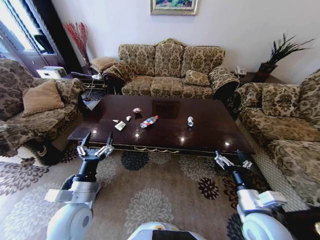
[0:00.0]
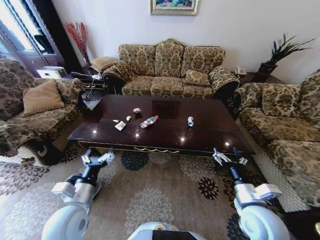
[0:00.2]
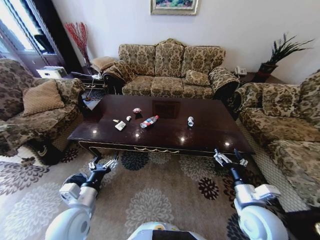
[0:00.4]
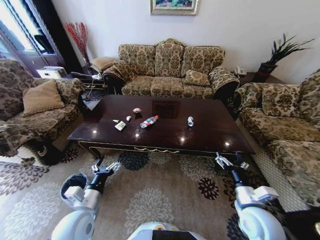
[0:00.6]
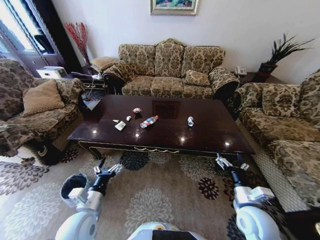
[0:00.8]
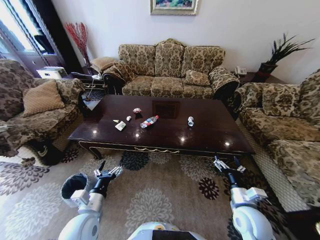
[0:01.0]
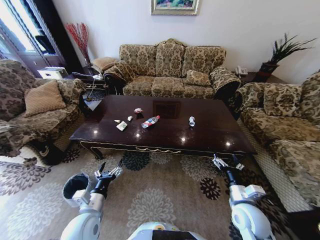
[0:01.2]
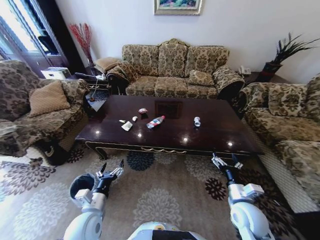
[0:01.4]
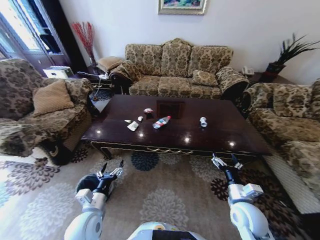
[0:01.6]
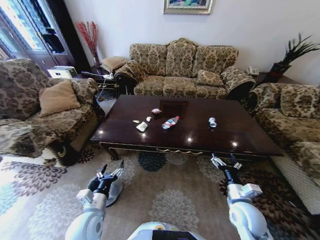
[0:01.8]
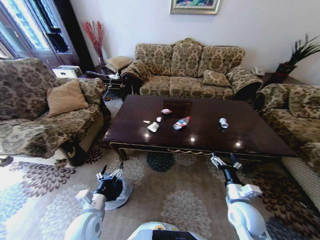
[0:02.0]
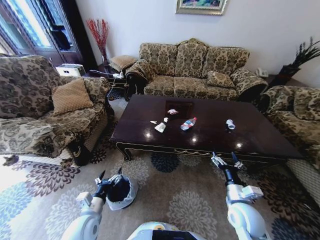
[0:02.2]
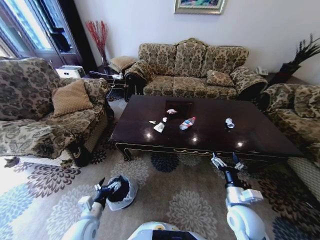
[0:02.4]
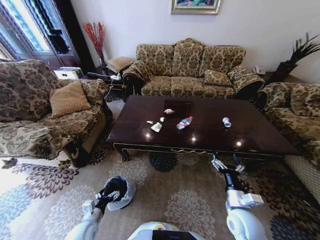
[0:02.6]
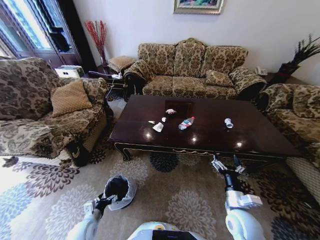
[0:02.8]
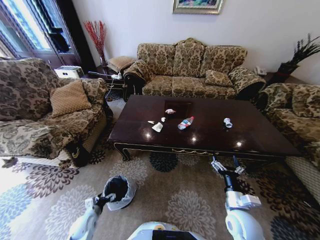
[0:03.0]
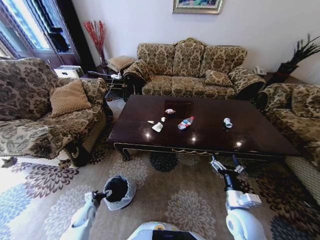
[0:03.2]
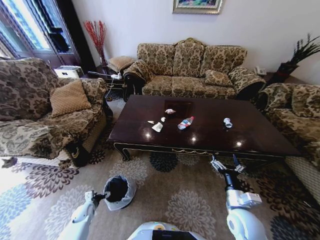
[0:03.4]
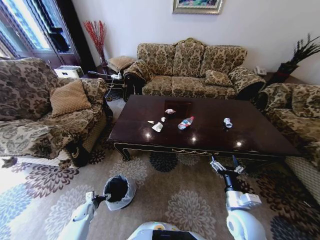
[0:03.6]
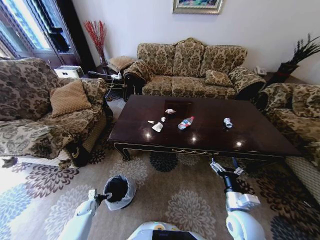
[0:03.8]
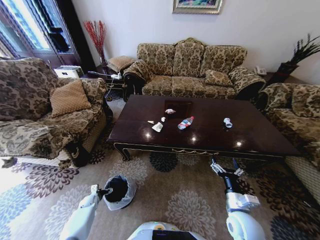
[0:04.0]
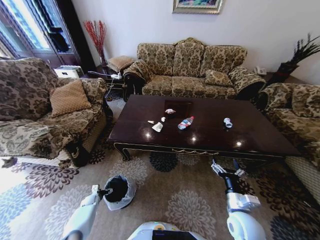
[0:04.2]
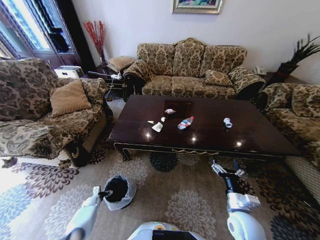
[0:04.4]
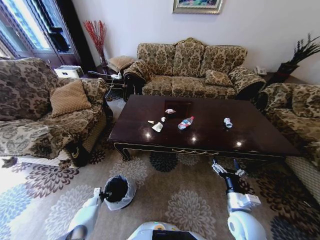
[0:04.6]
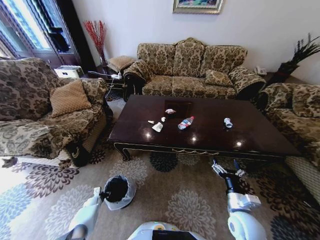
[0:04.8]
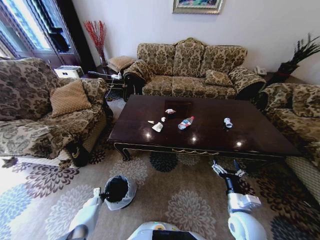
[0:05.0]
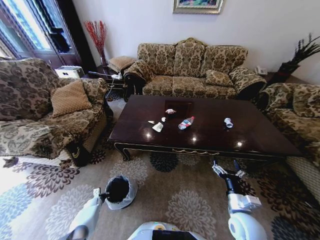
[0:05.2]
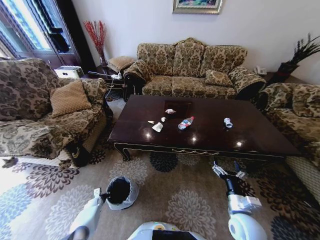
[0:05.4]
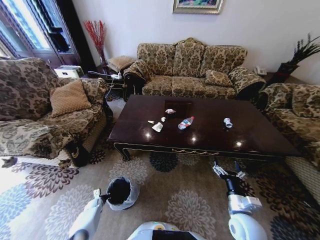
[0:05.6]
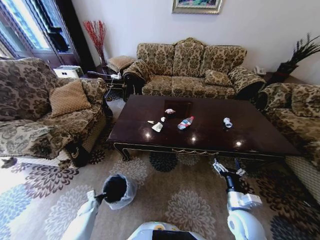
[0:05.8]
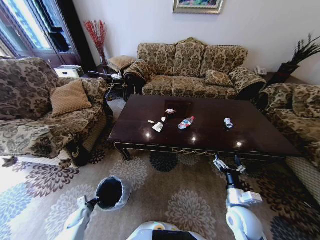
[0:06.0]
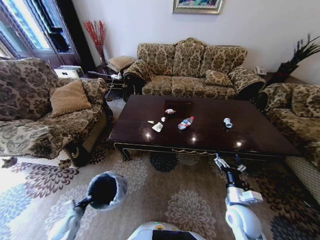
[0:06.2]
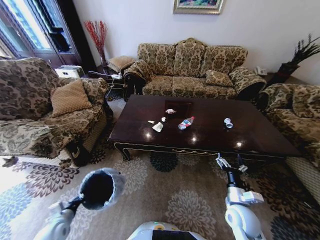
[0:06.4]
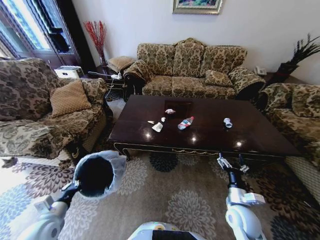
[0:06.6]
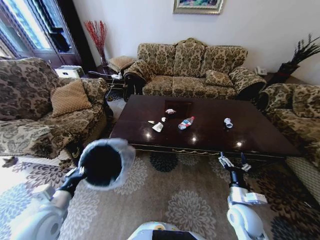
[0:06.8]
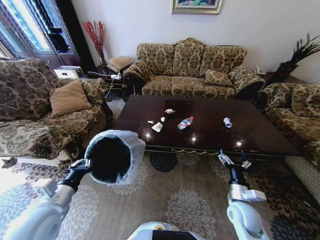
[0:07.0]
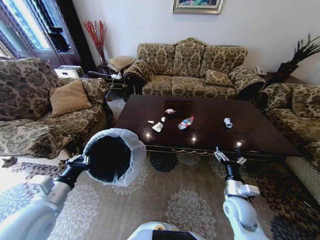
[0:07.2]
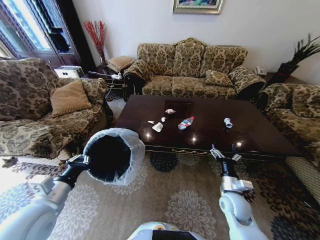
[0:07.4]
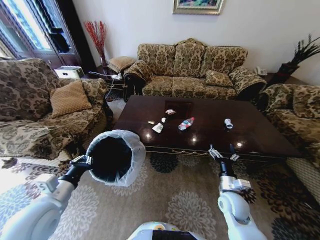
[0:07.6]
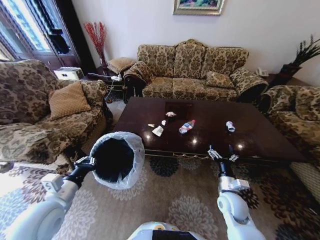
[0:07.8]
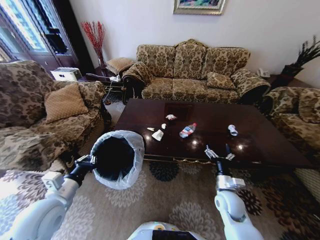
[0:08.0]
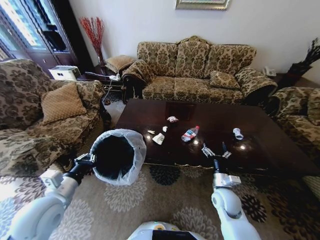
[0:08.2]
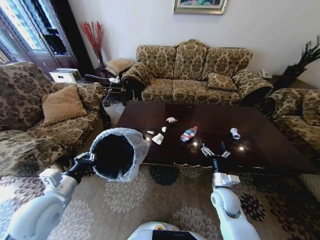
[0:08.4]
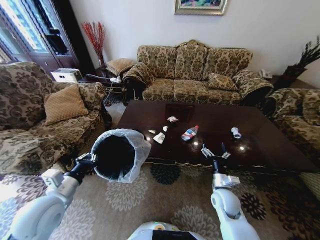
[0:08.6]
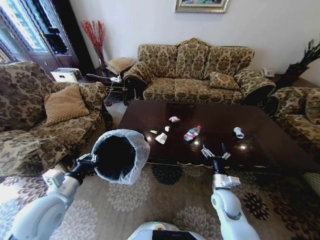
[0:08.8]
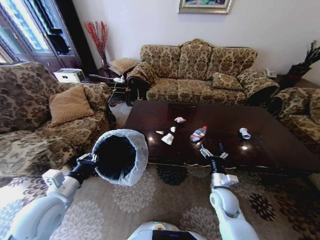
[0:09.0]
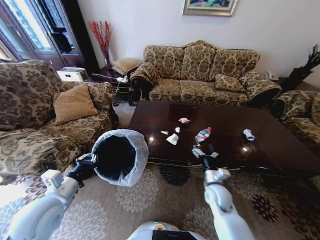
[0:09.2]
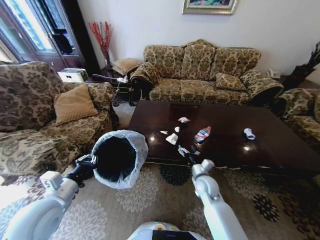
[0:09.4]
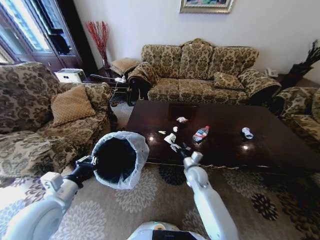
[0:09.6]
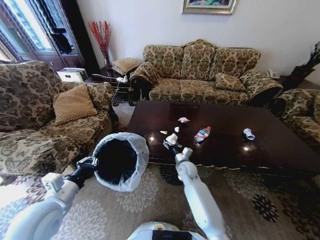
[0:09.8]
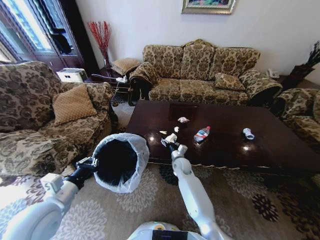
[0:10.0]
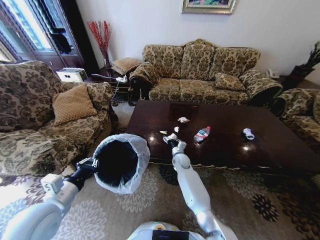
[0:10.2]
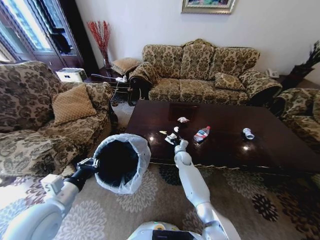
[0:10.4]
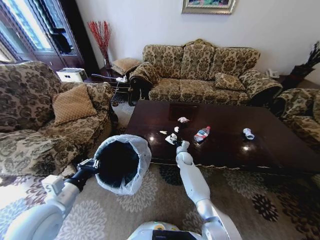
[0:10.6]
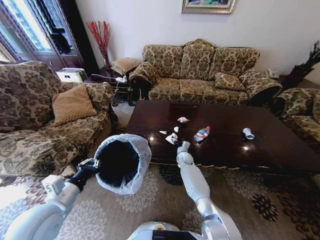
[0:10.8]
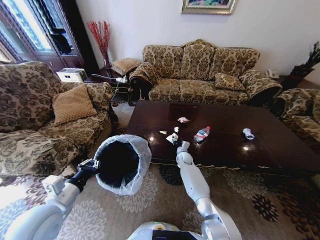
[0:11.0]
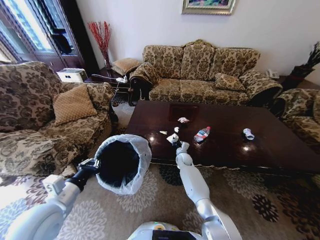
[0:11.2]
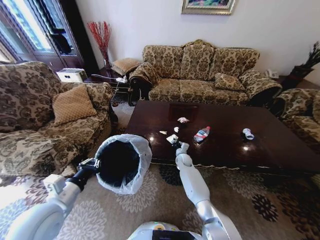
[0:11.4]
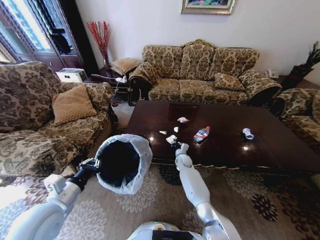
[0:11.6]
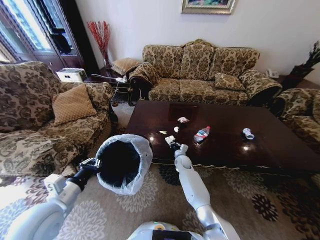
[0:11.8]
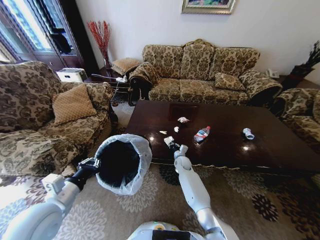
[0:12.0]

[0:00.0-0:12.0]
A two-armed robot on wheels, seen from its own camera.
Task of the whole recording: Move to the front of the table and place the trash on the table into the trash bin.
0:01.6 to 0:03.0: The left gripper goes about 20 cm downward and to the left.
0:03.0 to 0:04.4: The left gripper heads downward, forward and to the left, covering about 20 cm.
0:04.4 to 0:06.0: The left gripper is displaced backward and upward by roughly 10 cm, and closes its fingers.
0:06.0 to 0:07.6: The left gripper is displaced upward by approximately 40 cm. The right gripper moves forward, approximately 5 cm.
0:09.0 to 0:10.4: The right gripper heads forward and to the left, covering roughly 25 cm.
0:10.4 to 0:12.0: The right gripper closes its fingers.

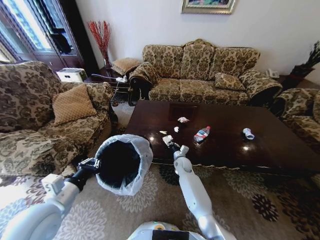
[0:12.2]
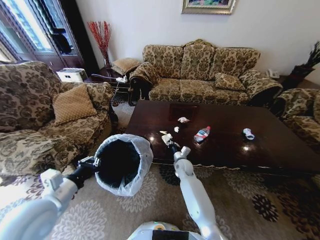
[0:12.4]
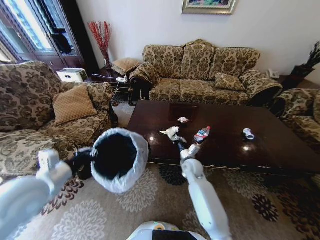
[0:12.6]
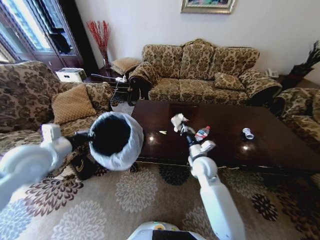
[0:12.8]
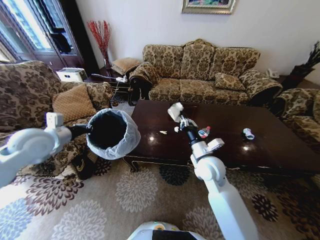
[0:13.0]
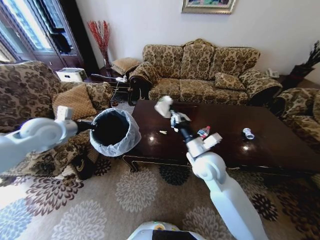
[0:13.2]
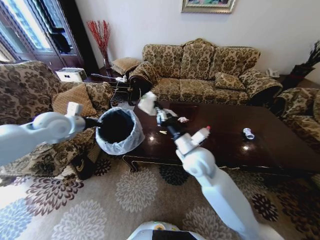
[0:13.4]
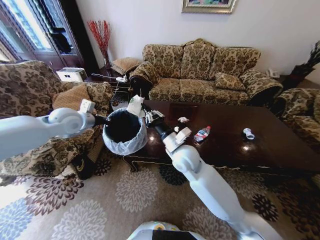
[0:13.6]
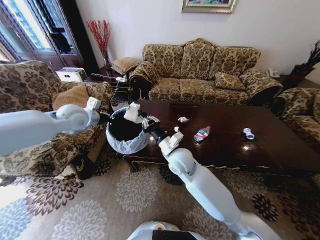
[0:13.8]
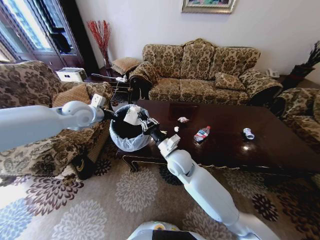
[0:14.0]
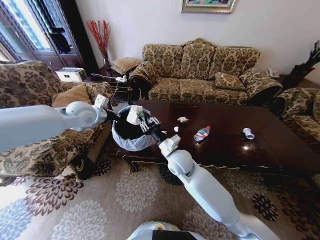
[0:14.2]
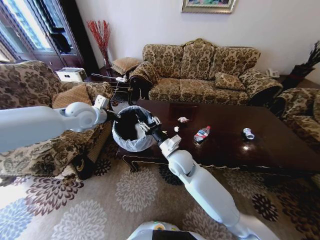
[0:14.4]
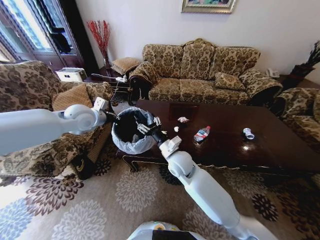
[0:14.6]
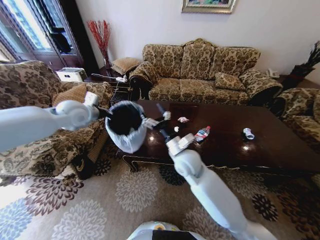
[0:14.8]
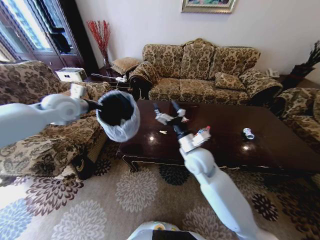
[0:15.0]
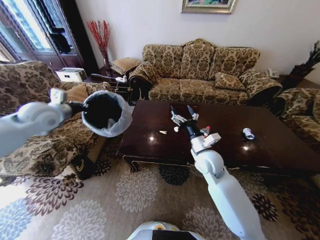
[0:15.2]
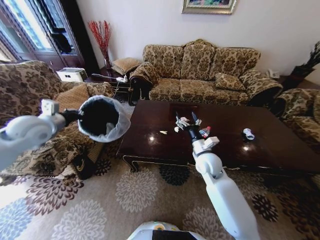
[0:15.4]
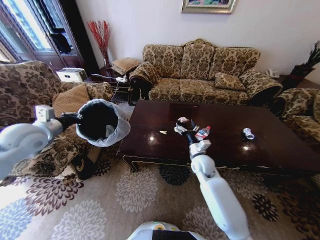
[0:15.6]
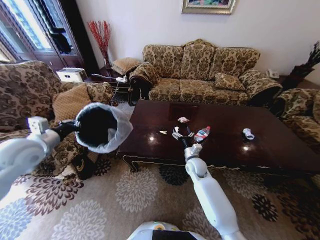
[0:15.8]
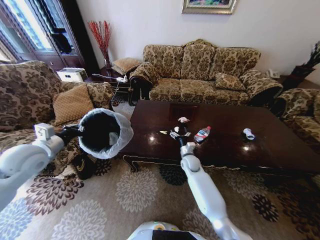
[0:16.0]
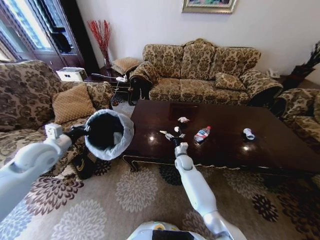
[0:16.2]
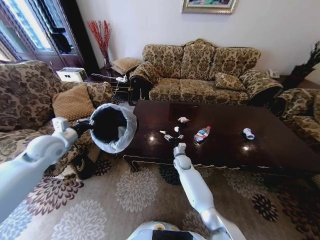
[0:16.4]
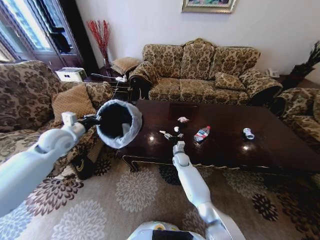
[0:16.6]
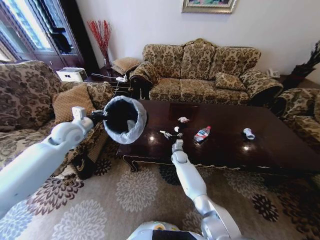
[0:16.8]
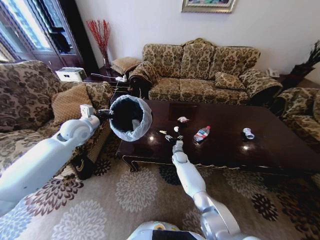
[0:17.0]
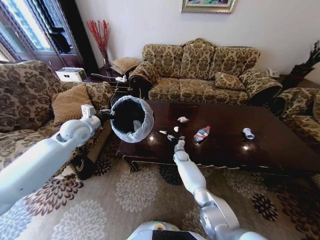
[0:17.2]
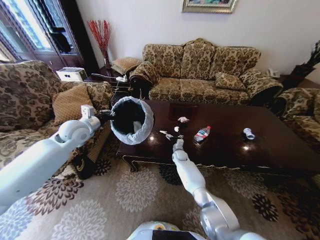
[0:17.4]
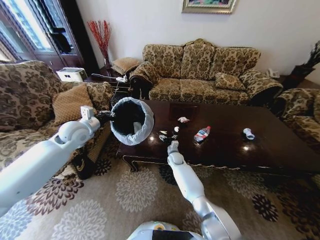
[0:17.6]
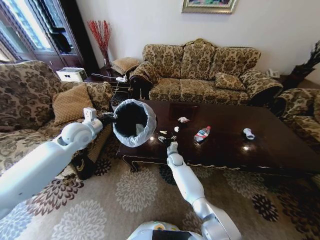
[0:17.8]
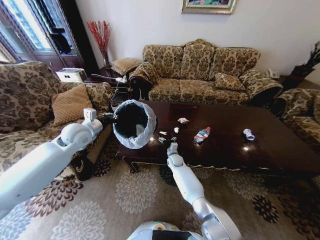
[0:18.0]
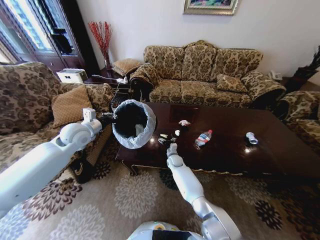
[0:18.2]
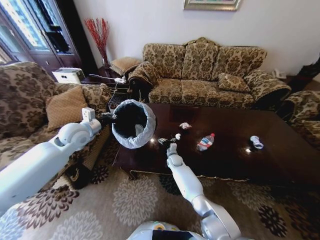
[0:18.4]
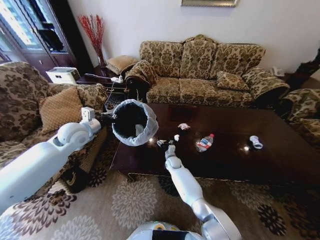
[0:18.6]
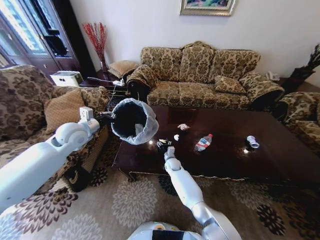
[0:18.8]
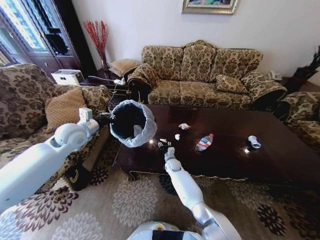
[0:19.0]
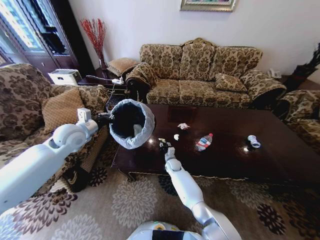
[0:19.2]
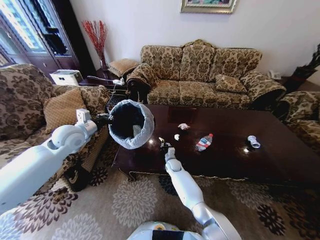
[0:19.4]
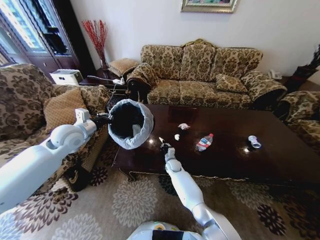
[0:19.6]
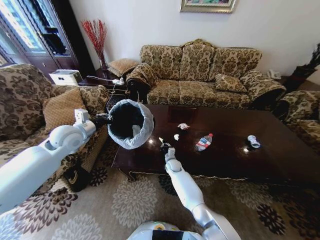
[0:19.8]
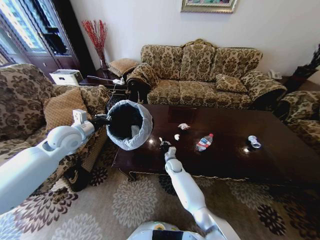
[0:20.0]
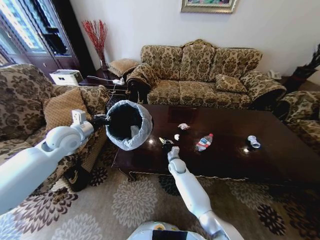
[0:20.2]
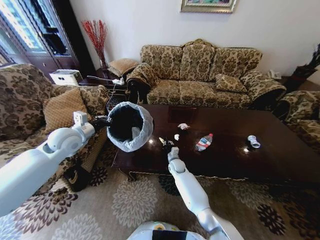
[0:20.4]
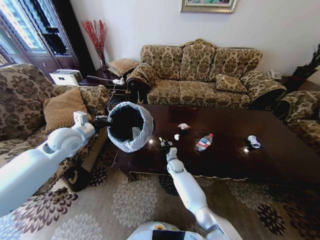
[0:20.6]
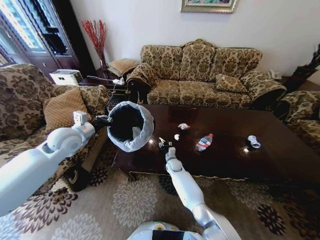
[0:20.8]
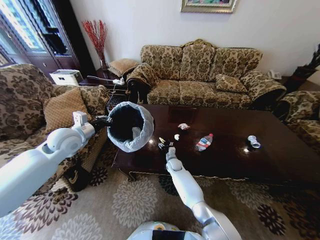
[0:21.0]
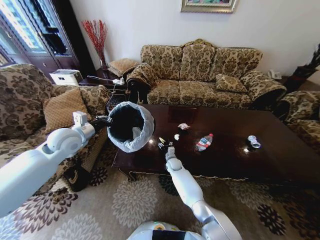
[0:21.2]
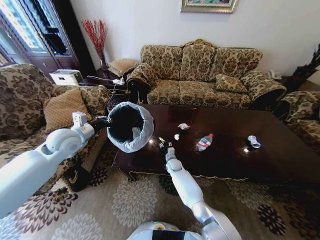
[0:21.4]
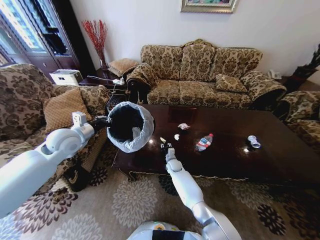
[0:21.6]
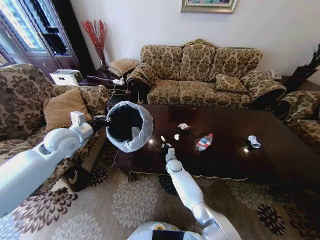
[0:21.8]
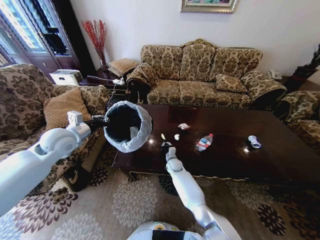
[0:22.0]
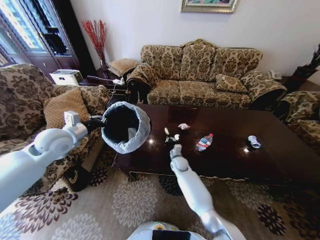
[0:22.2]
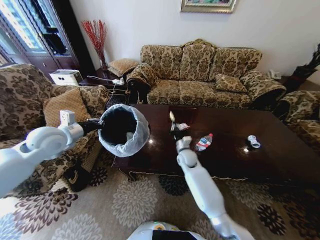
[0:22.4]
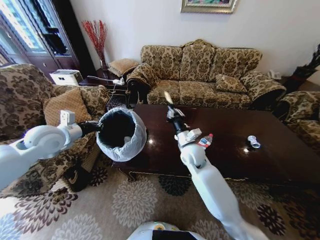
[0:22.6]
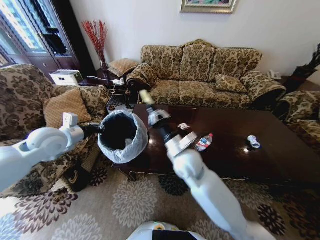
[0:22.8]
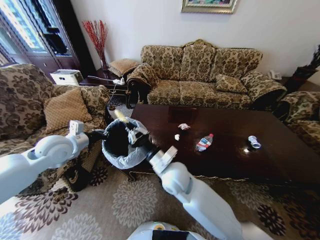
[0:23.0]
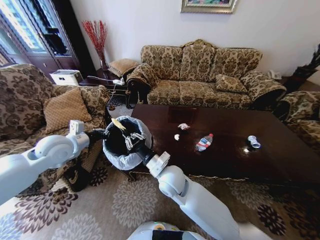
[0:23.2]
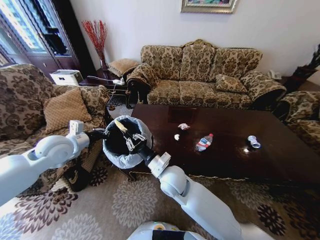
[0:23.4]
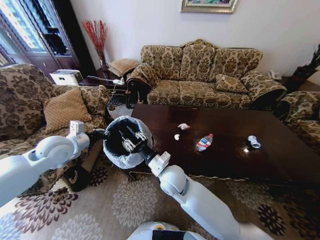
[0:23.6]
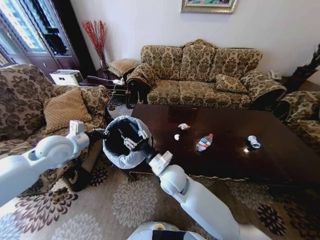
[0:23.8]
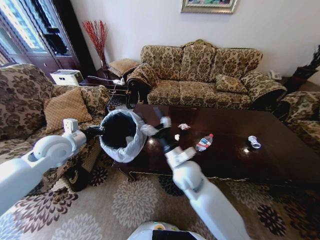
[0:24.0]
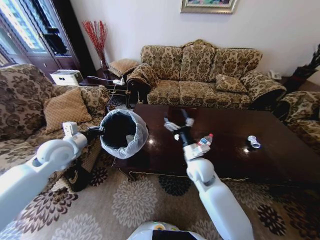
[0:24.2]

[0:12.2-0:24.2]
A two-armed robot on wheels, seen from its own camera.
Task of the whole recording: Move to the front of the table and place the trash on the table into the trash bin.
0:12.2 to 0:13.8: The left gripper shifts roughly 30 cm forward and upward, while the right gripper shifts approximately 25 cm upward and backward.
0:13.8 to 0:15.2: The right gripper moves to the right, roughly 10 cm, and opens up. Meanwhile the left gripper moves to the left, roughly 10 cm.
0:15.2 to 0:16.6: The right gripper travels downward and forward by some 25 cm. The left gripper shifts some 10 cm downward, and moves approximately 10 cm backward and comes back.
0:16.6 to 0:18.2: The left gripper moves to the right, about 5 cm.
0:18.2 to 0:19.8: The right gripper closes its fingers.
0:19.8 to 0:21.2: The right gripper opens up.
0:21.2 to 0:22.6: The right gripper goes some 25 cm upward, and closes.
0:22.6 to 0:24.2: The right gripper shifts approximately 5 cm backward, moves roughly 10 cm to the left and comes back, and opens; the left gripper shifts roughly 5 cm downward.
